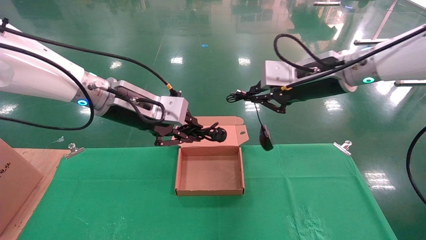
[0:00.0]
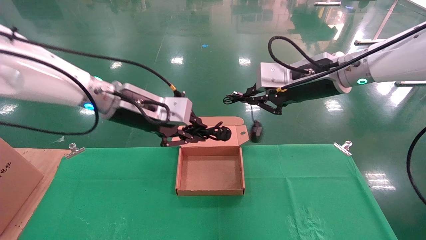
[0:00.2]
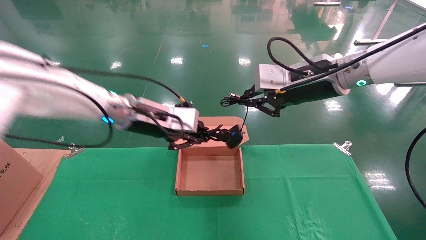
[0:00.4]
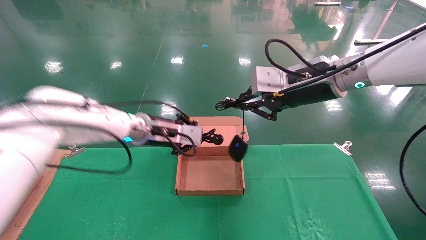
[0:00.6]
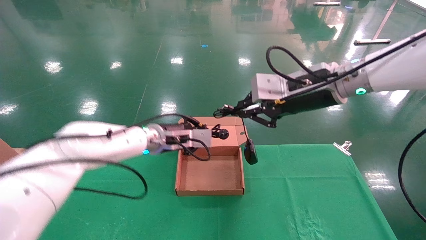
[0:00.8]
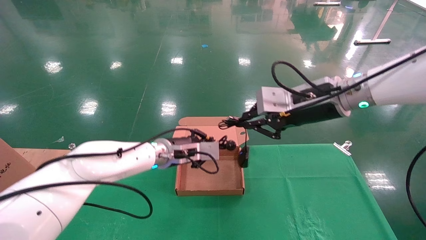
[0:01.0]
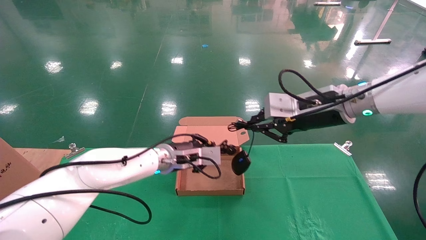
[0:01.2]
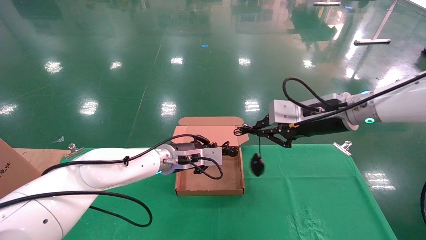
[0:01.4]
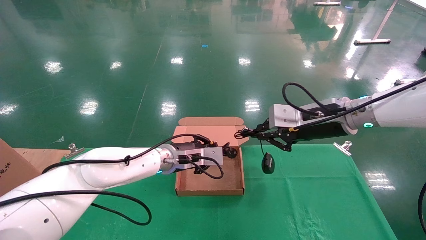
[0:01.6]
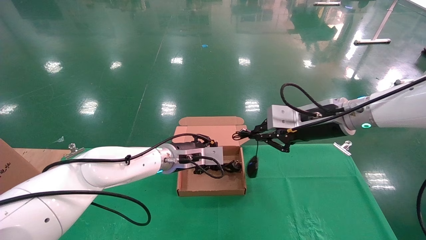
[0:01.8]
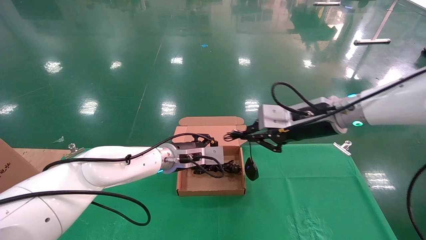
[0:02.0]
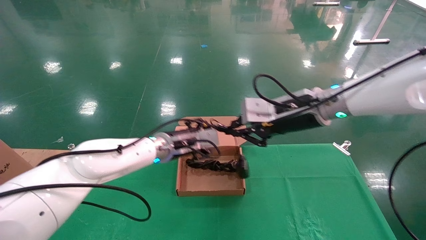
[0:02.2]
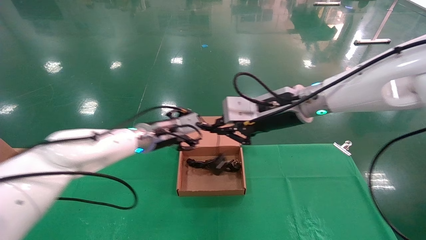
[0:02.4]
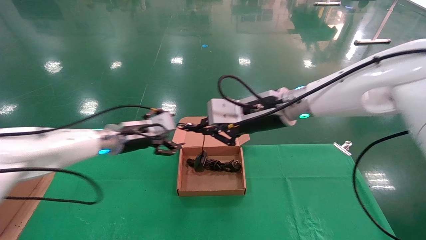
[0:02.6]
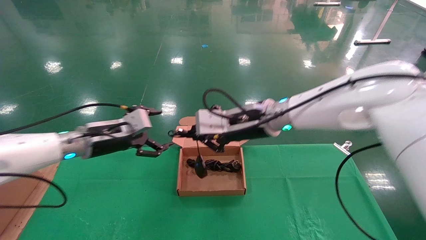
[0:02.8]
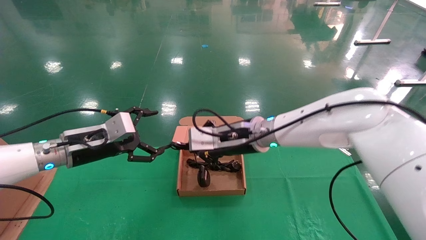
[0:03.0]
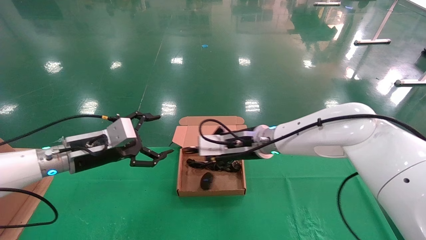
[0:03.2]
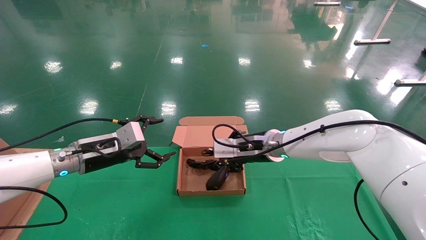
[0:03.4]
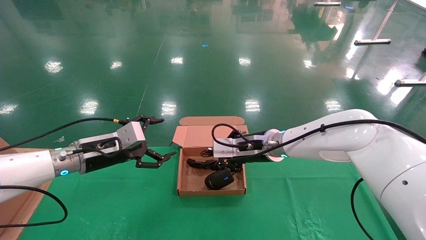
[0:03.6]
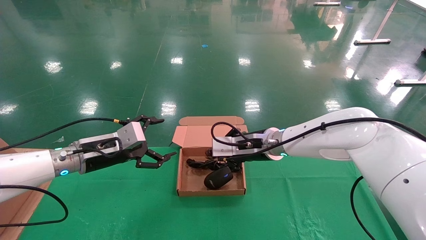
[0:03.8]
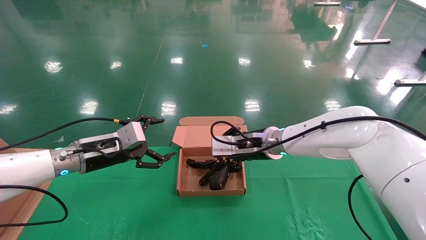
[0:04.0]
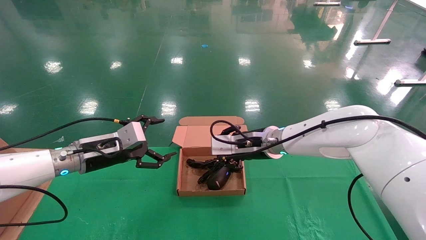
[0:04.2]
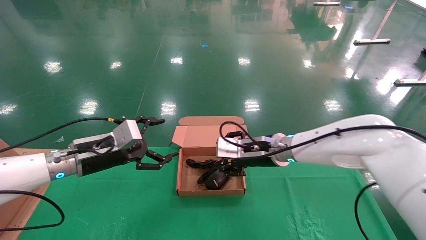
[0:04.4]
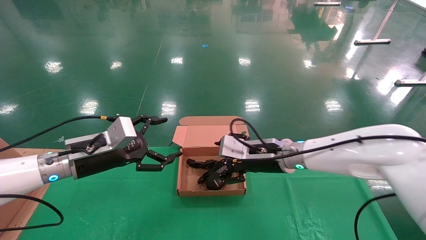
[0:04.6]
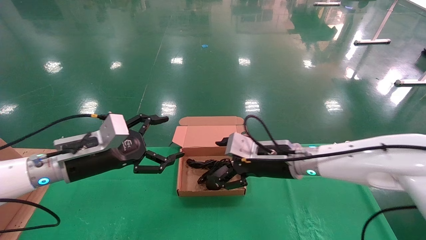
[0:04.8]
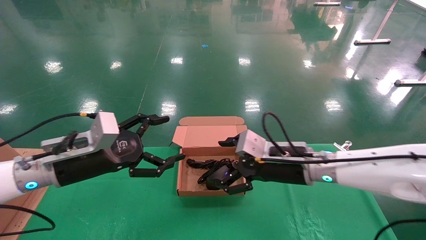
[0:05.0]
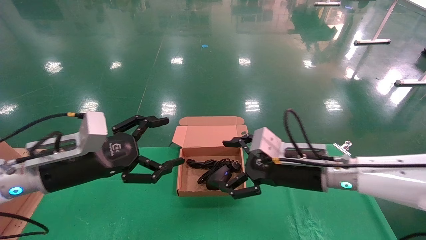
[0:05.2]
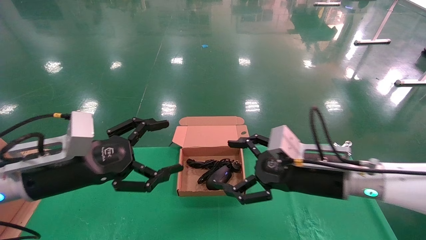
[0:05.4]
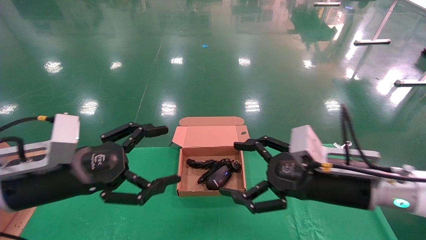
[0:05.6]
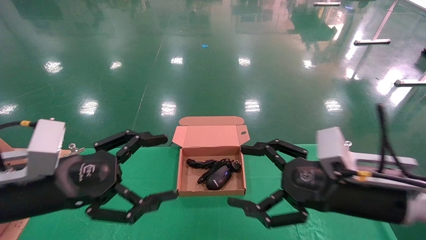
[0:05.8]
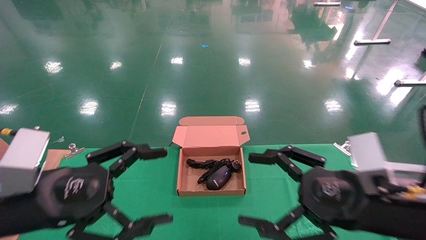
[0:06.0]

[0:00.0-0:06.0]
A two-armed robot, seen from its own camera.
Step, 0:00.0 to 0:04.6: Place the mouse and power cord into the box.
0:00.0 to 0:01.6: The right gripper moves downward, roughly 5 cm. Meanwhile the left gripper moves downward, forward and to the right, some 20 cm.
0:01.6 to 0:03.0: The grippers both shift to the left by approximately 15 cm. The left gripper opens.
0:03.0 to 0:04.4: The right gripper changes place by roughly 5 cm, and opens.
0:04.4 to 0:06.0: The right gripper goes about 25 cm backward and to the right, and opens. The left gripper moves backward, about 20 cm.
